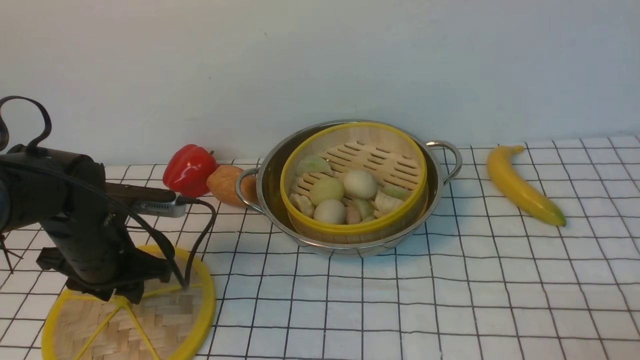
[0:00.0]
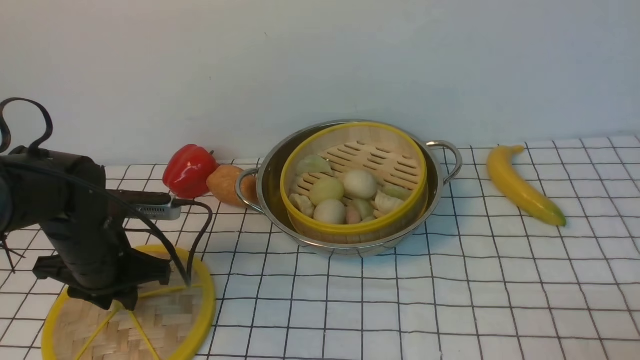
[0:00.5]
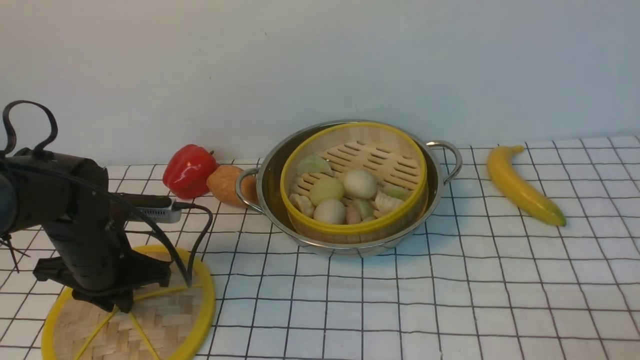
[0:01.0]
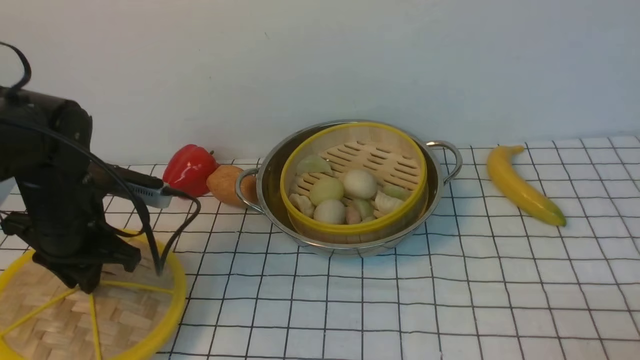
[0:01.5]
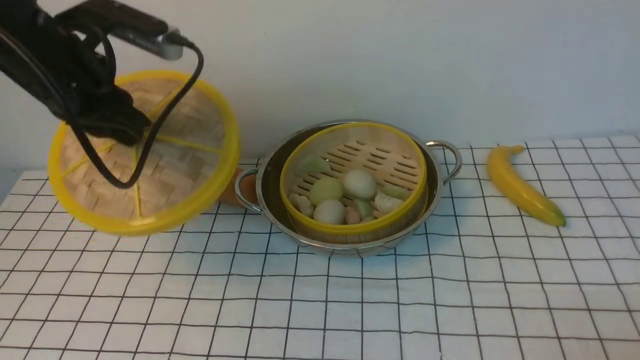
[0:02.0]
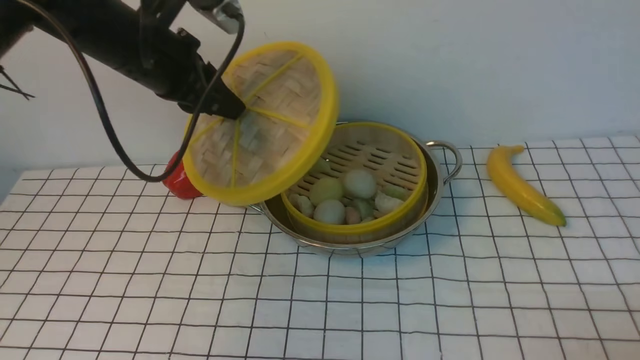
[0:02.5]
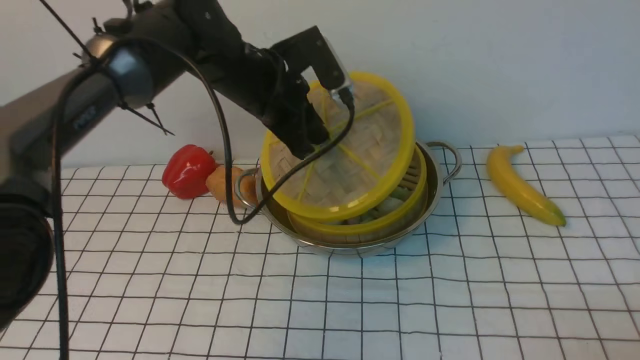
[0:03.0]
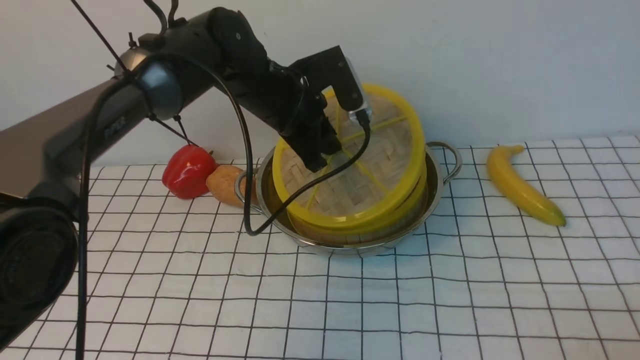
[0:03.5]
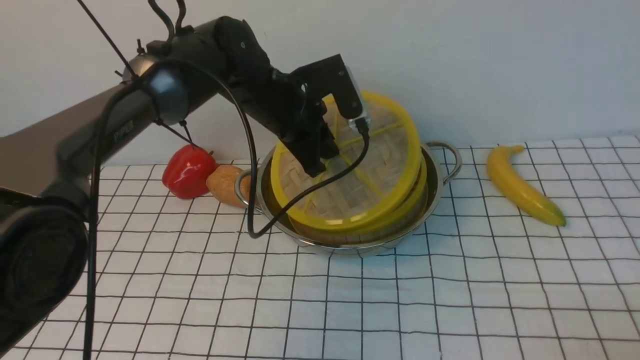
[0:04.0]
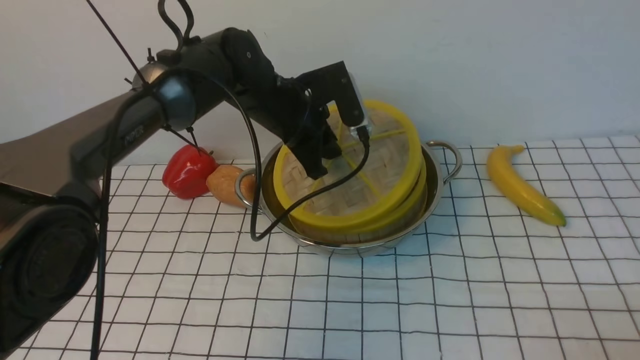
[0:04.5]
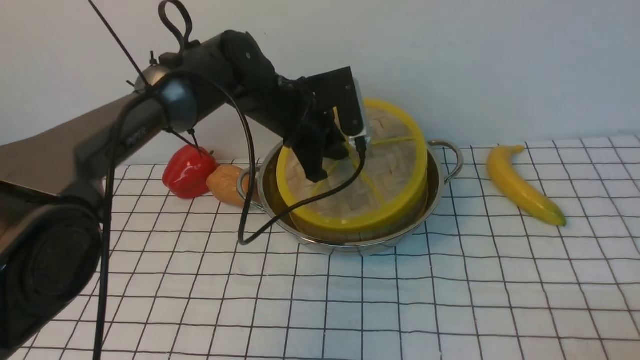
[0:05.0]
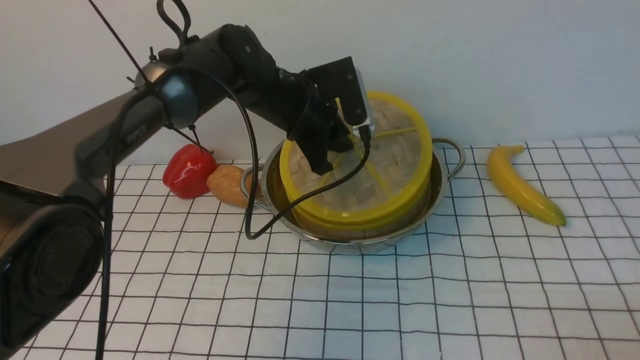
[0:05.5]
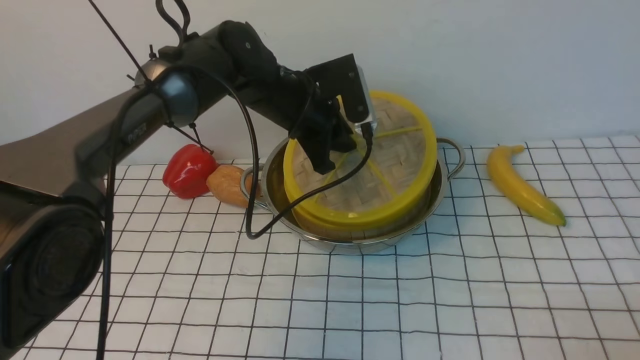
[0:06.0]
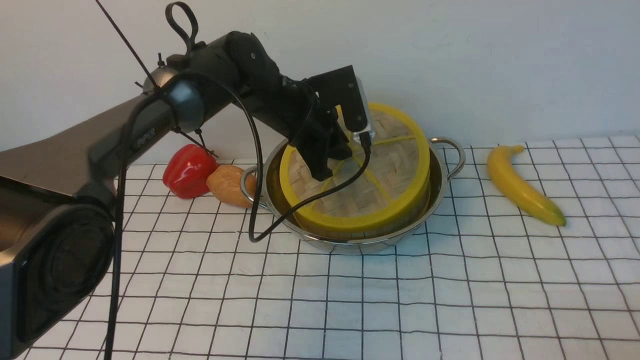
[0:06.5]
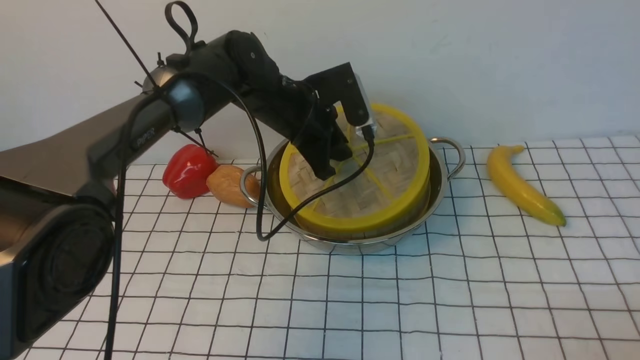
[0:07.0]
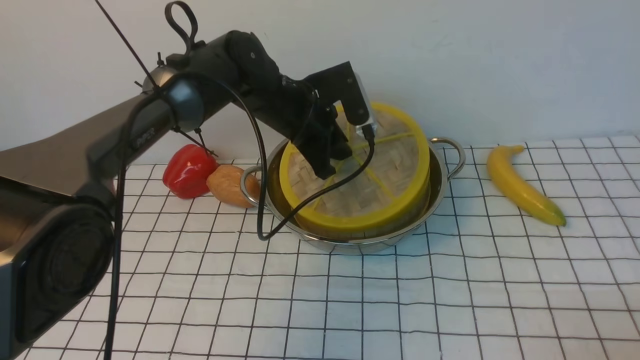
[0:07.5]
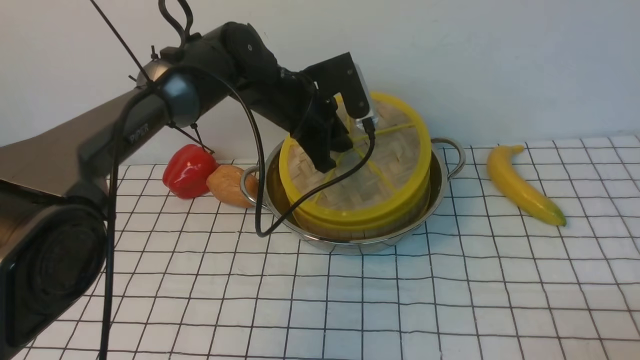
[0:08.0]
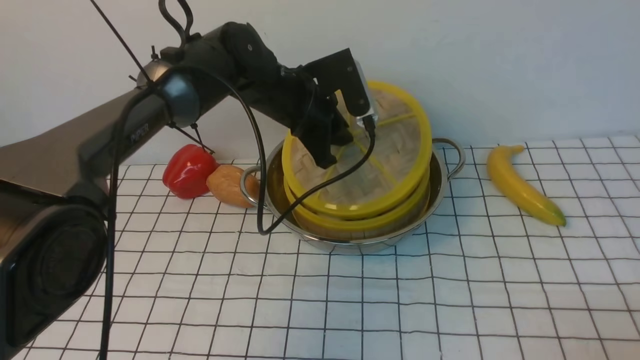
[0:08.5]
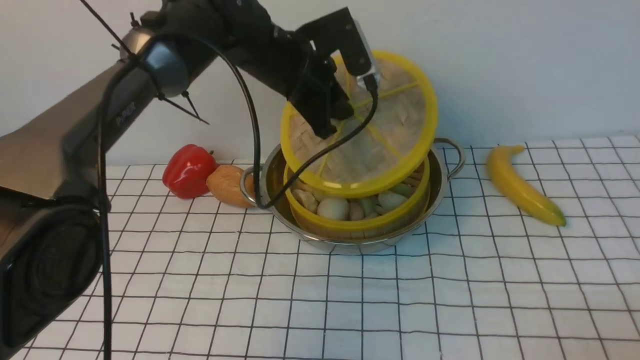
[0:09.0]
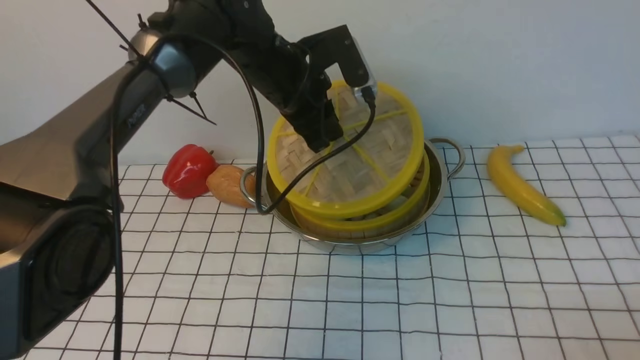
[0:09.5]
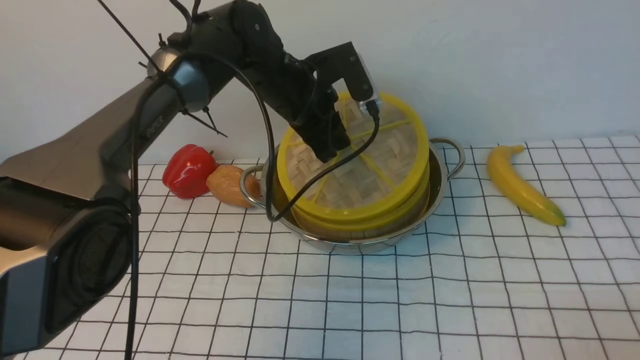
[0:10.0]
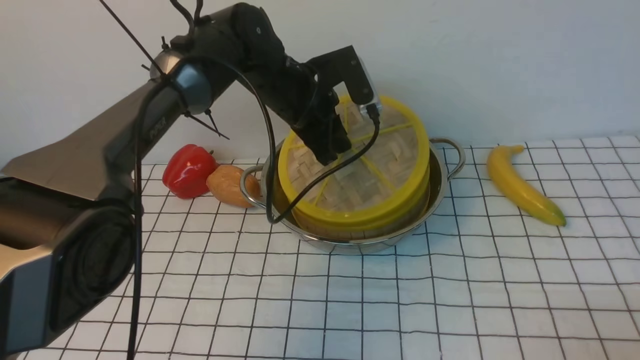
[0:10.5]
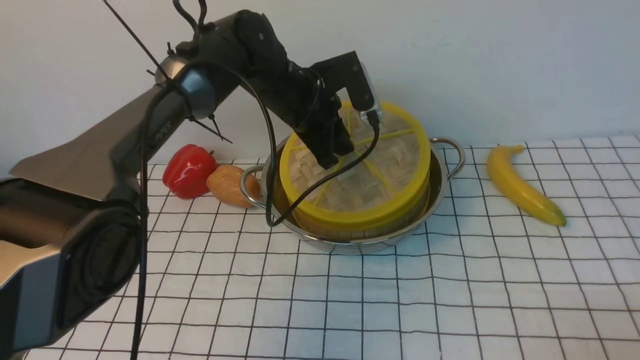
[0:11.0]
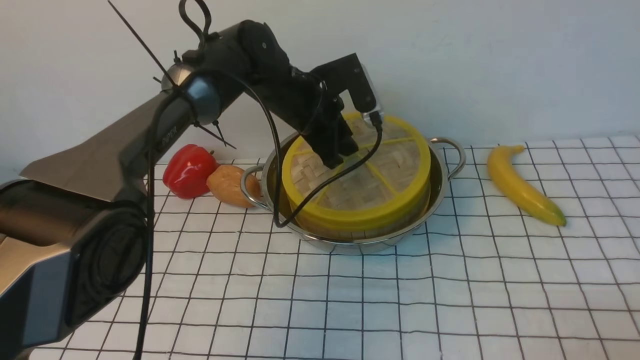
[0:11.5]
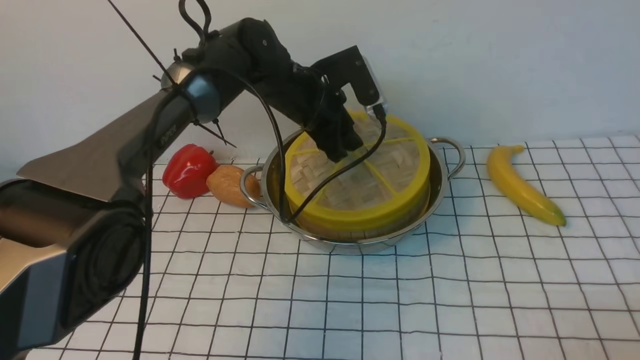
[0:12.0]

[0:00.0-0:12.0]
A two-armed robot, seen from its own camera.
Task of the whole recording: place the steamer in the pot on the white tablecloth, and put the lid on the steamer.
0:00.0 to 0:02.0: The left gripper heads upward, covering about 20 cm, and closes up.
0:02.0 to 0:04.0: The left gripper heads to the right, downward and forward, covering about 20 cm.
0:04.0 to 0:10.0: The grippers stay close to where they were, moving slightly.
0:10.0 to 0:12.0: The left gripper opens.

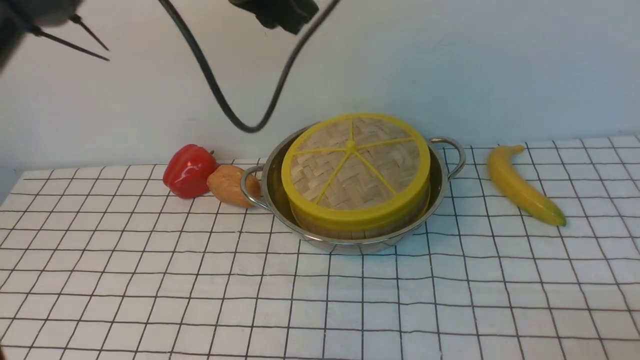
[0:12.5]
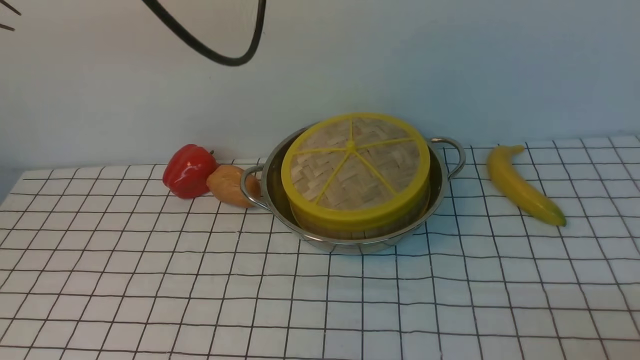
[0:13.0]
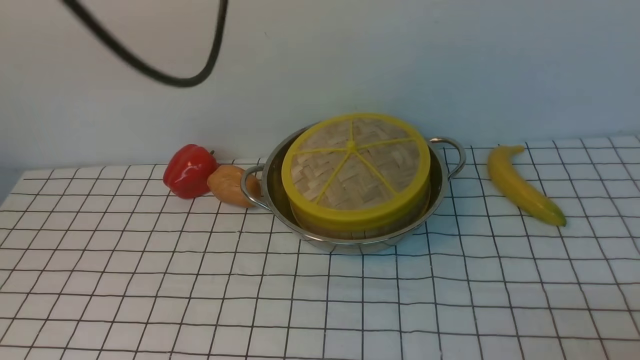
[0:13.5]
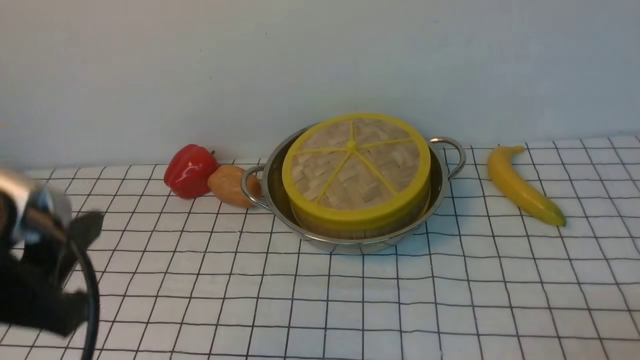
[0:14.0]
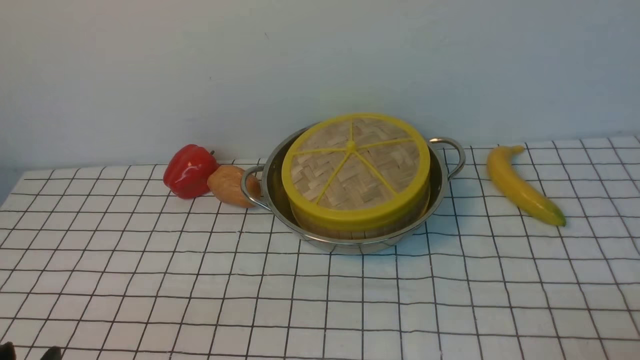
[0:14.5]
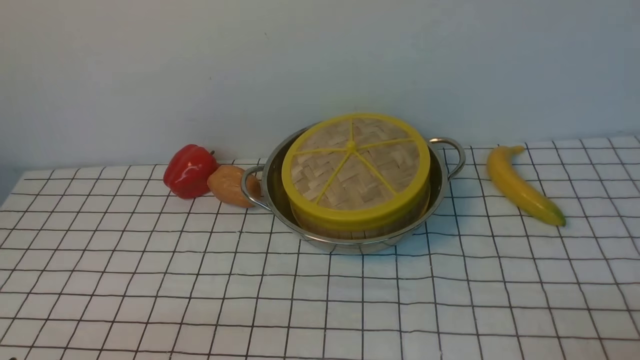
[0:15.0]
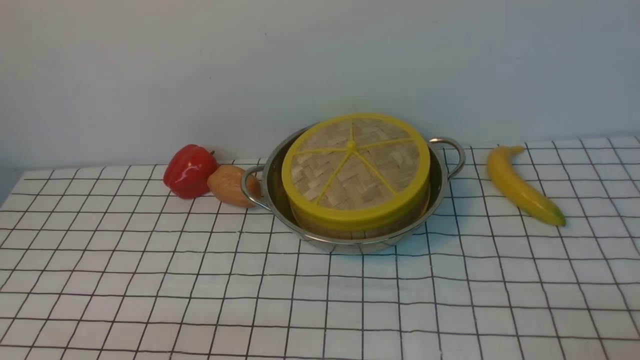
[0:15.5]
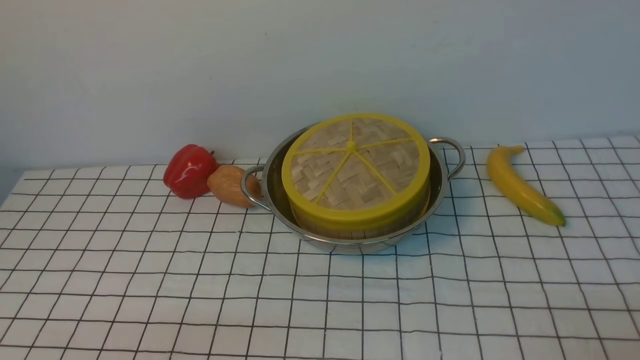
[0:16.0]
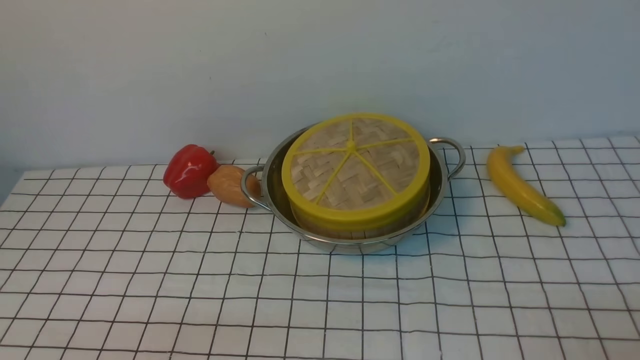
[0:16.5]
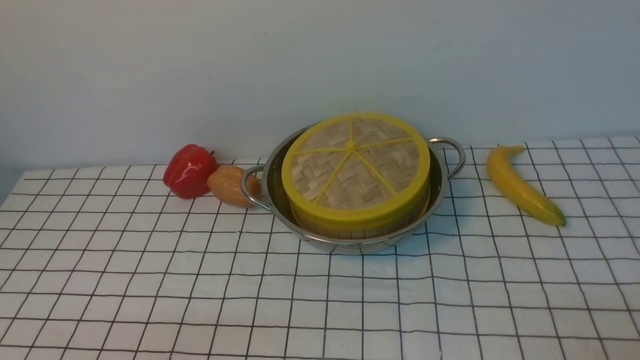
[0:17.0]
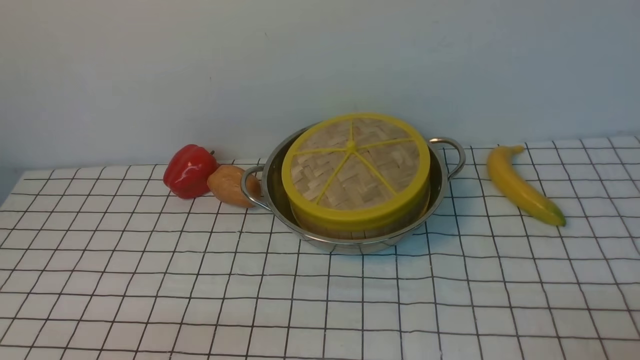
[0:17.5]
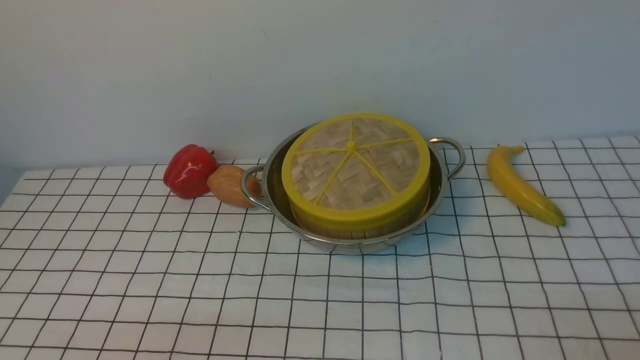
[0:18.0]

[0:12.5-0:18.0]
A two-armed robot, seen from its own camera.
Task of the whole recording: place the steamer in the pot on the white tablecloth, and put the lid on the steamer.
0:12.5 to 0:14.5: The left gripper goes about 40 cm backward, downward and to the left.
0:16.0 to 0:18.0: Neither gripper changes place.
